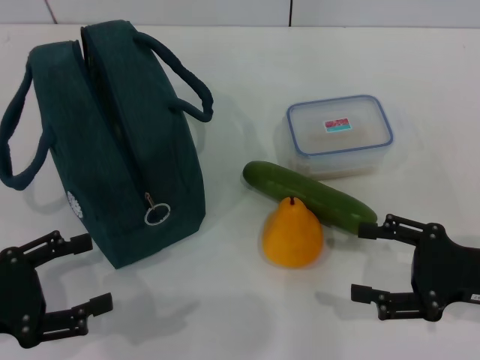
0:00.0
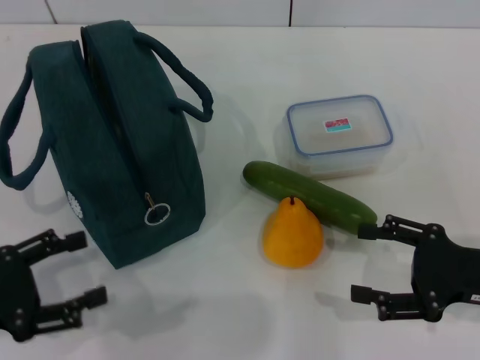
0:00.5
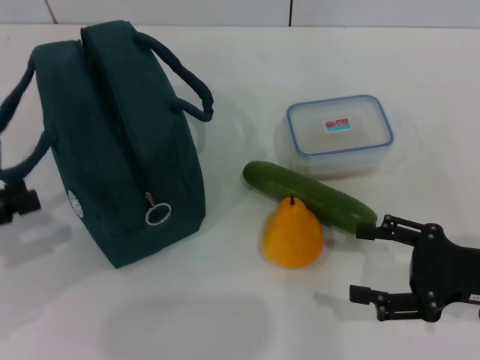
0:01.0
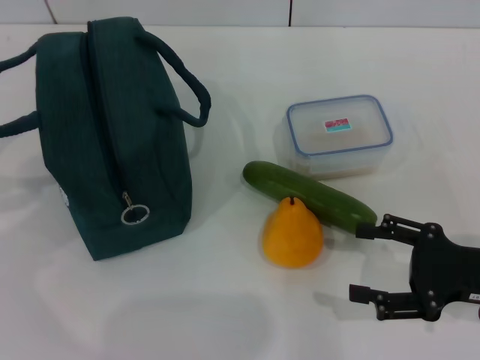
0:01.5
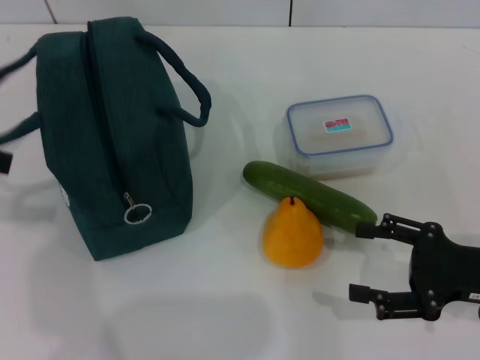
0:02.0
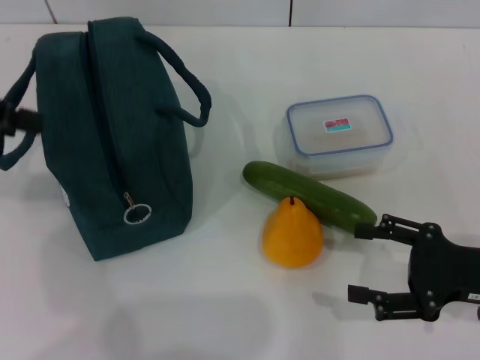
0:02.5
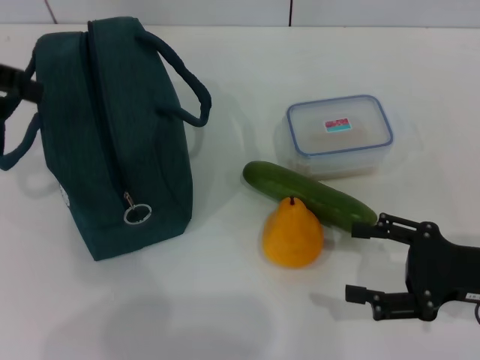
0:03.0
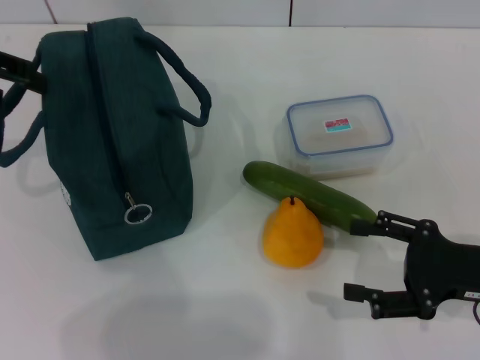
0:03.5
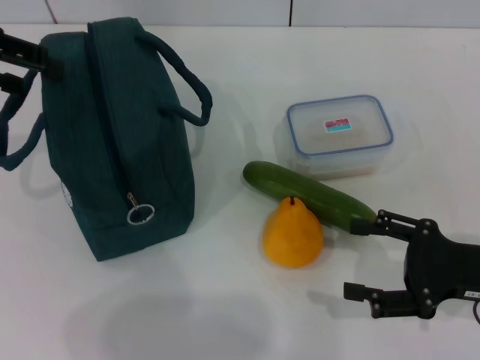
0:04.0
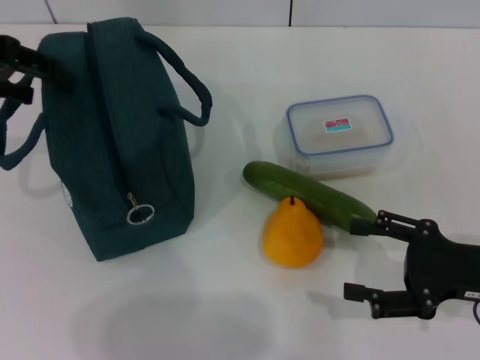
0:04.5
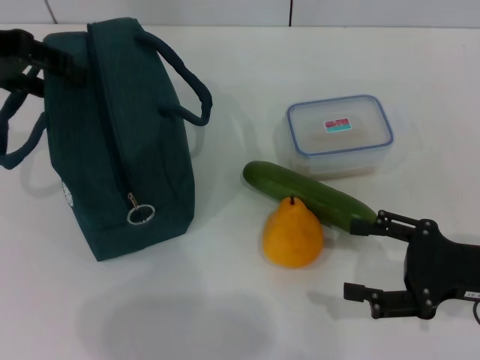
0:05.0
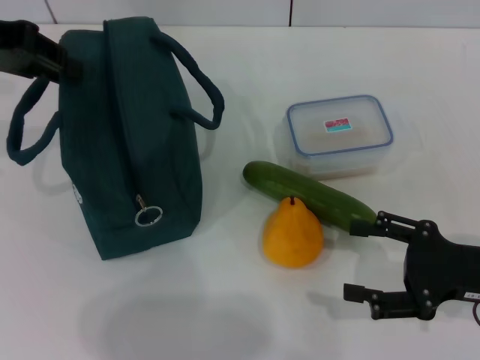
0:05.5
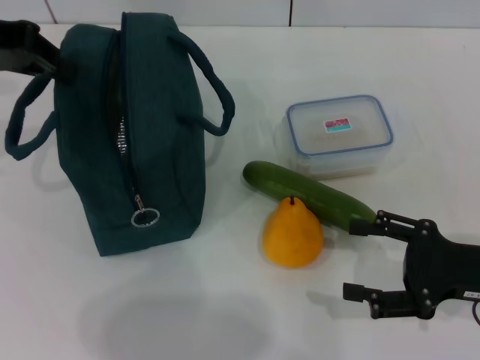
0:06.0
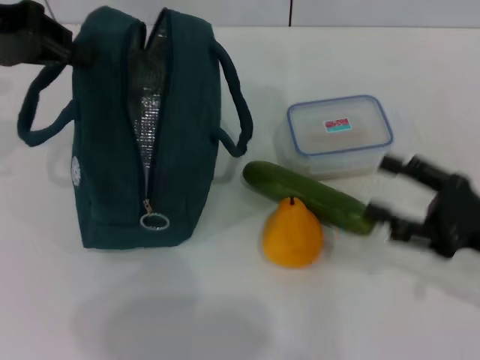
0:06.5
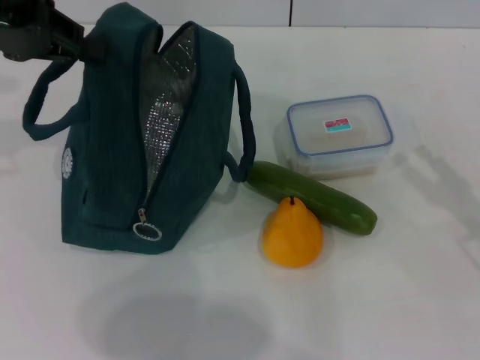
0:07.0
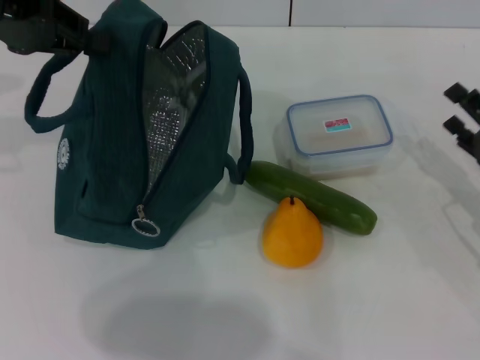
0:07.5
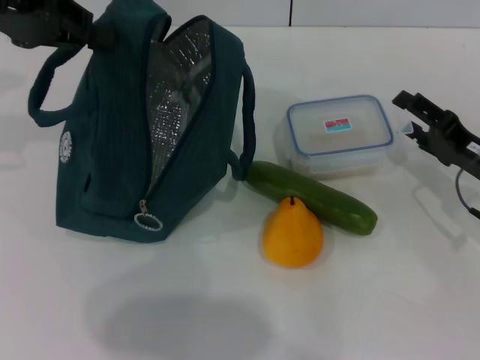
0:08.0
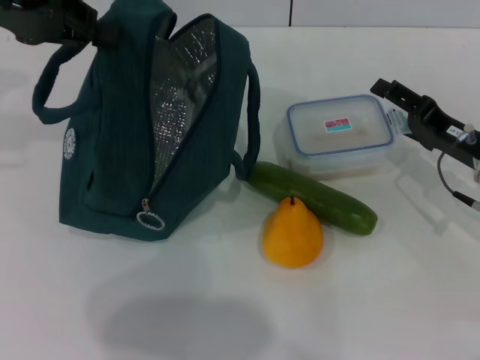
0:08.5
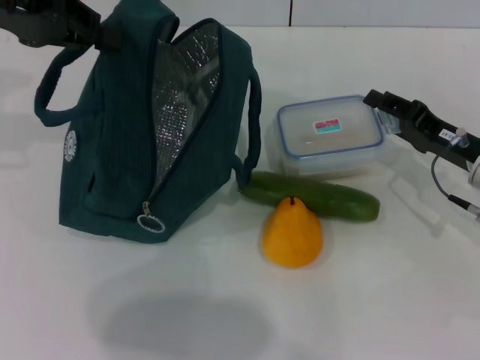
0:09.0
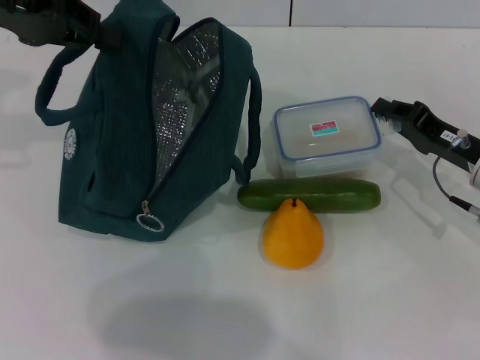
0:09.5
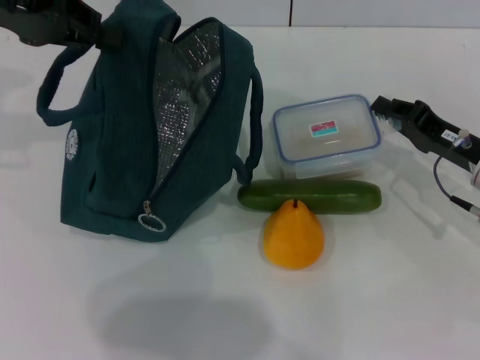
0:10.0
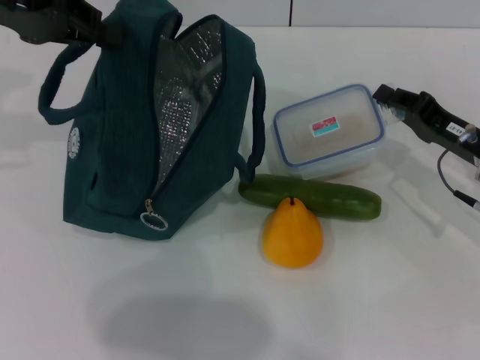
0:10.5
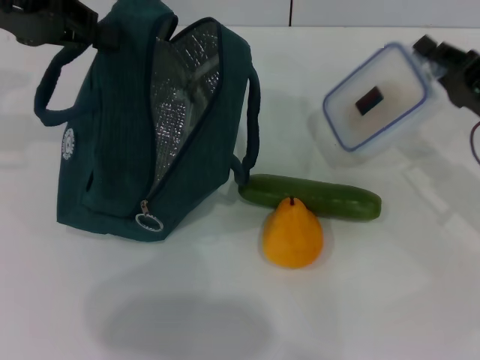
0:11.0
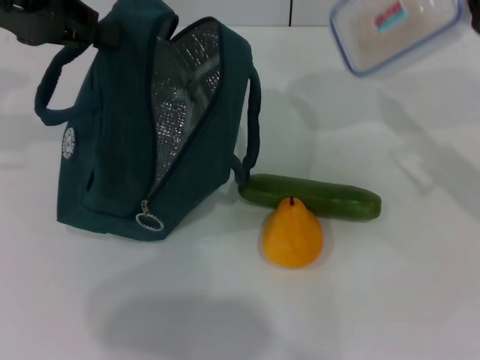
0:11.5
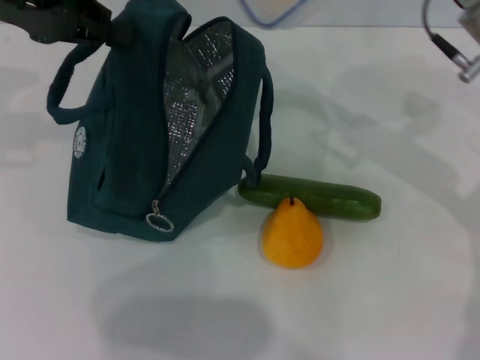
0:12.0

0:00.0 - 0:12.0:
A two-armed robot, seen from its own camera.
Step, 0:00.0 - 0:07.5: Hold the lunch bag with your left hand.
Step, 0:08.0 - 0:10.0: Pick up the lunch box with your right hand.
0:00.0 - 0:02.0: The left gripper heads upward and forward, covering roughly 20 cm.
0:02.0 - 0:04.0: The left gripper goes about 10 cm forward.
0:04.0 - 0:06.0: The left gripper closes its fingers.
0:06.0 - 0:08.0: The right gripper travels forward by about 10 cm.
0:08.0 - 0:10.0: The right gripper closes.
0:10.0 - 0:12.0: The right gripper is displaced upward and to the left by some 15 cm.

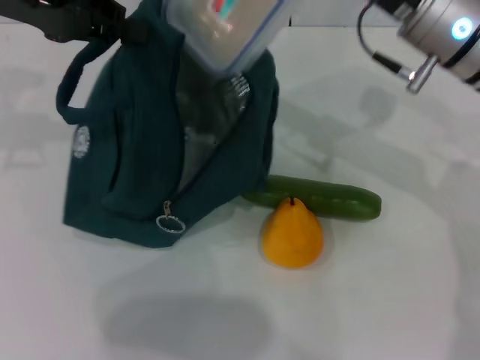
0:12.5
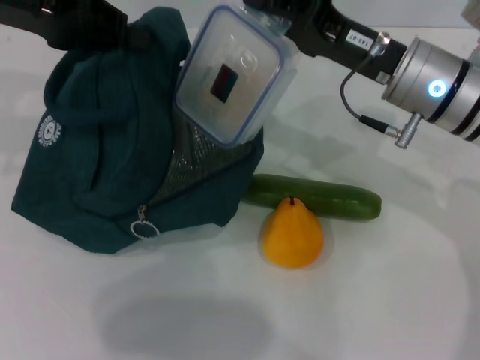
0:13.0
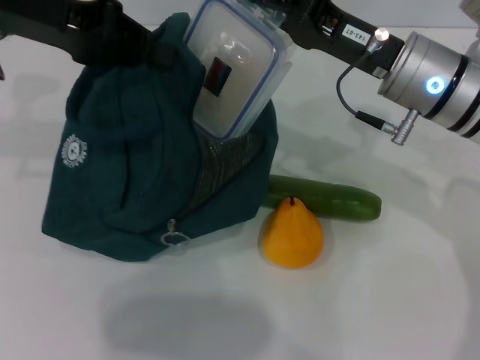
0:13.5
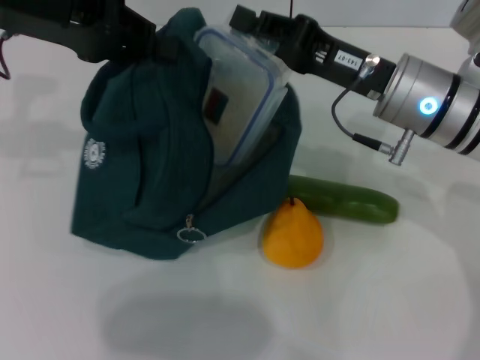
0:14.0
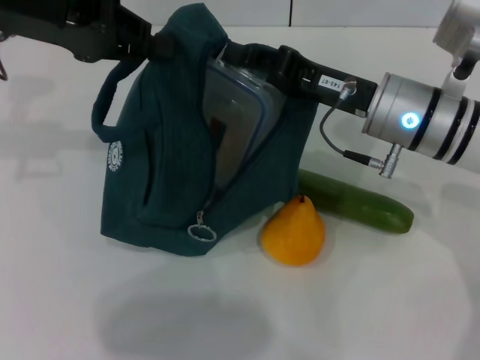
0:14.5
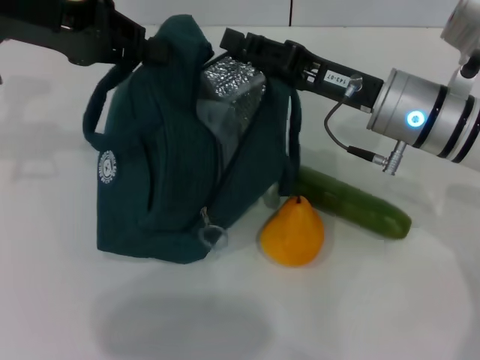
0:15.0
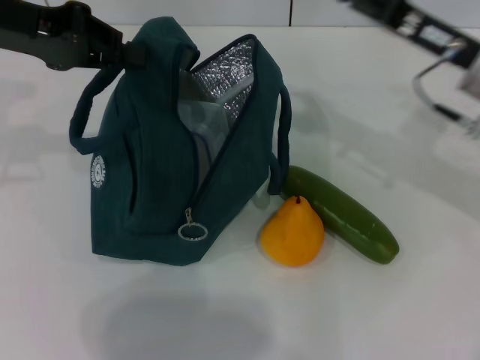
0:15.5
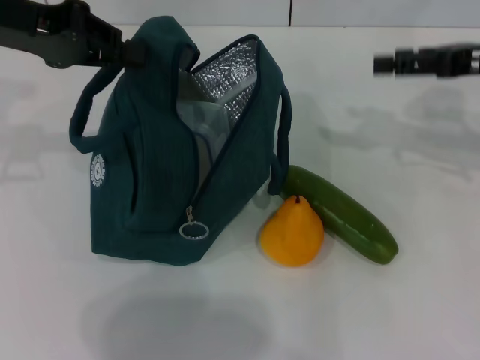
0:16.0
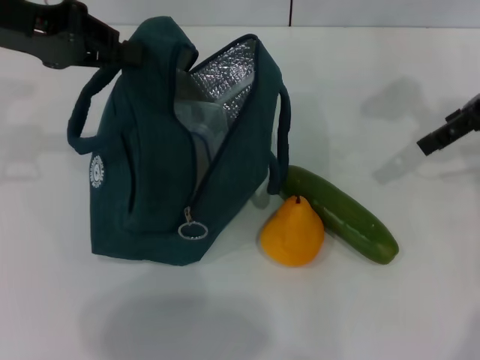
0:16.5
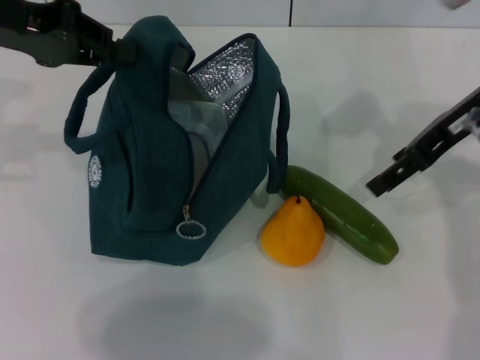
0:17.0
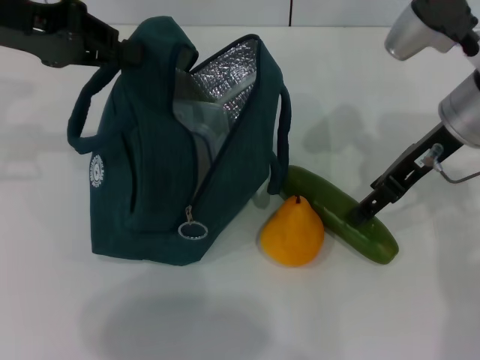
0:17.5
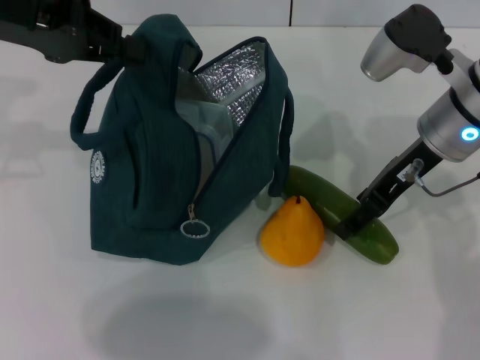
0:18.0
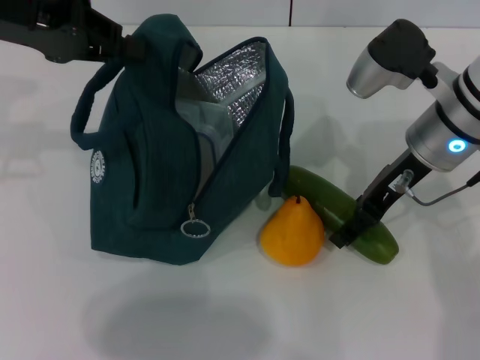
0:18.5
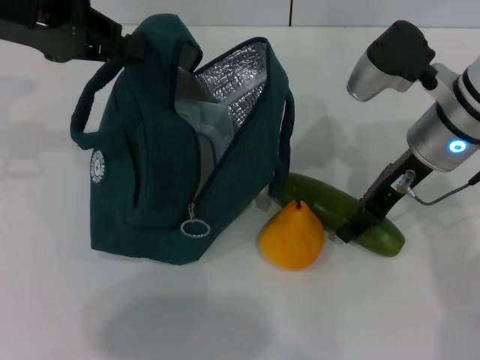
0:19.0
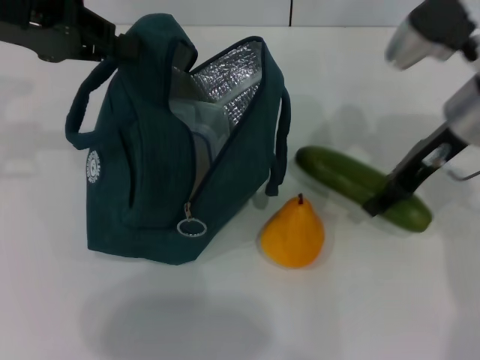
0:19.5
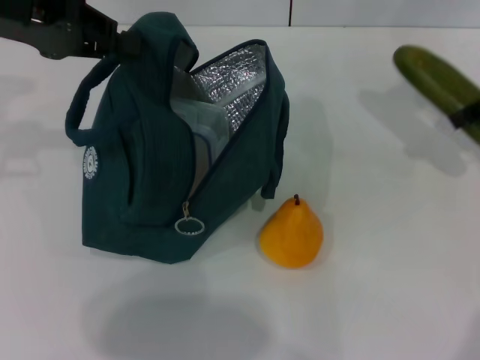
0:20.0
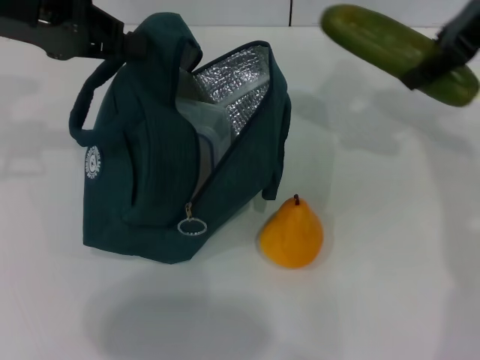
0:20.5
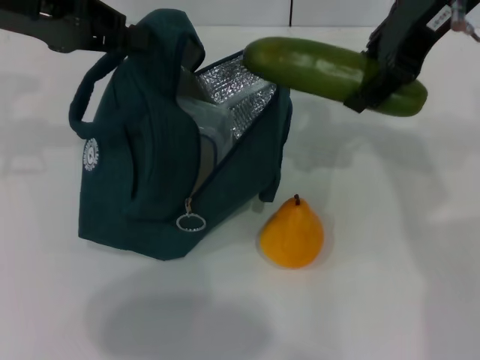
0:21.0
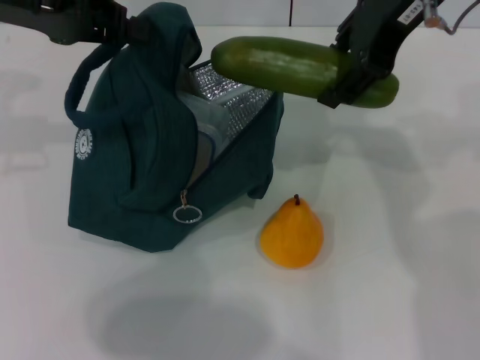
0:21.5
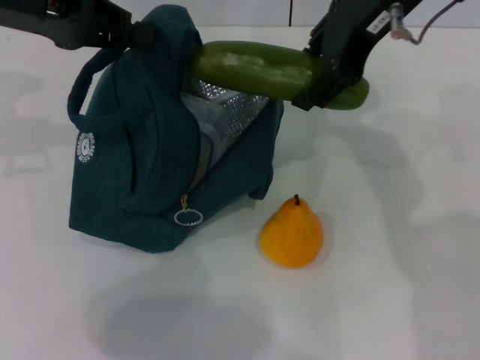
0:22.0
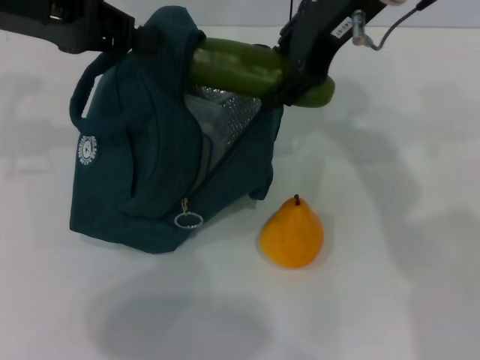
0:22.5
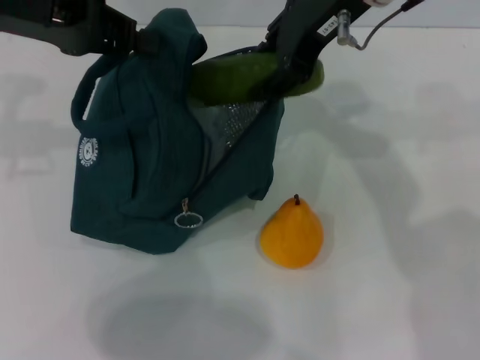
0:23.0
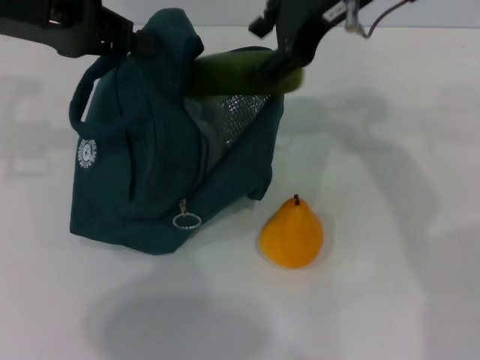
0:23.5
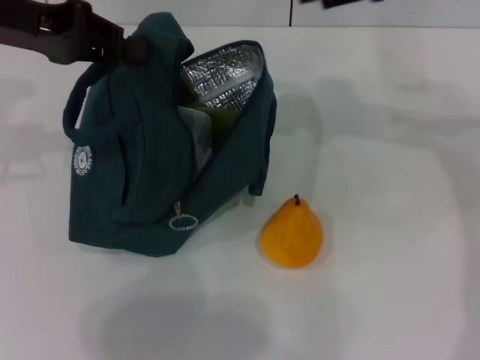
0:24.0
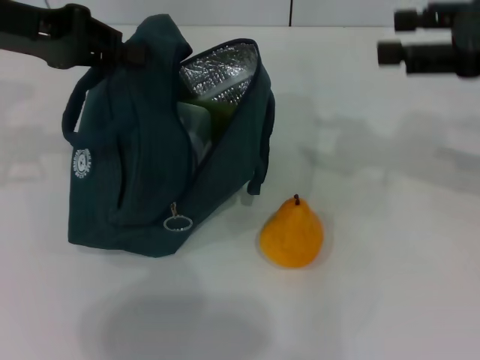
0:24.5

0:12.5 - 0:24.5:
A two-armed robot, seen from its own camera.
Step, 0:12.5 - 0:14.5: Place the lunch box into the lunch bag with your right hand.
Step, 0:15.0 - 0:18.5: Pick up the cucumber with your right hand.
Step, 0:19.0 - 0:23.5: Put the cucumber into the lunch bag with your right hand.
0:12.5 - 0:14.5: The right gripper shifts approximately 5 cm downward.
0:14.5 - 0:16.5: The right gripper heads to the right and upward, covering some 15 cm, and opens its fingers.
0:16.5 - 0:18.5: The right gripper travels to the left and downward by approximately 15 cm.
0:18.5 - 0:20.5: The right gripper shifts approximately 15 cm upward.
0:20.5 - 0:22.5: The right gripper travels to the left by about 10 cm.
0:22.5 - 0:24.5: The right gripper is displaced to the right by roughly 20 cm.

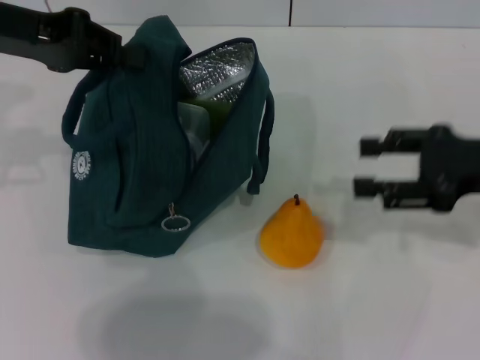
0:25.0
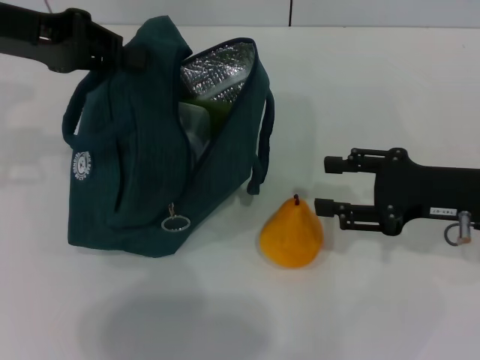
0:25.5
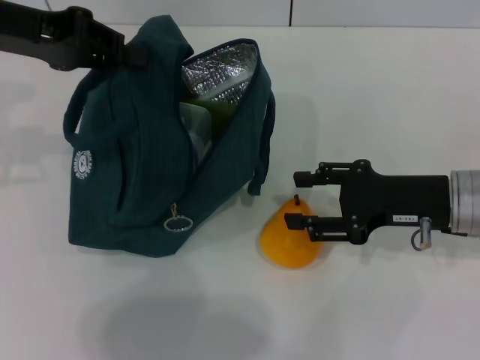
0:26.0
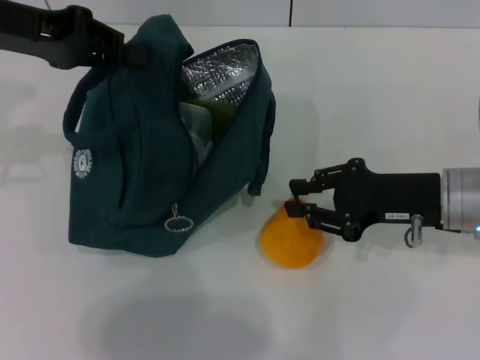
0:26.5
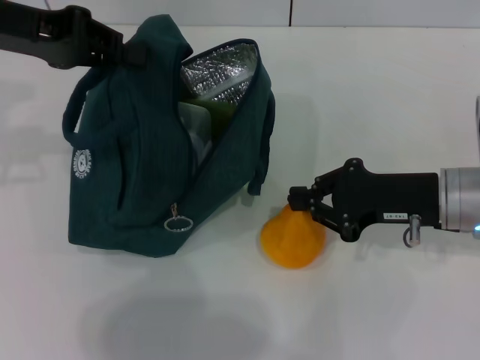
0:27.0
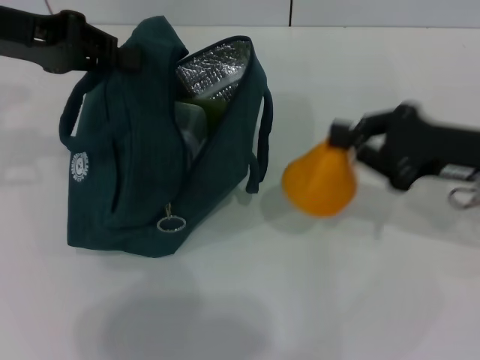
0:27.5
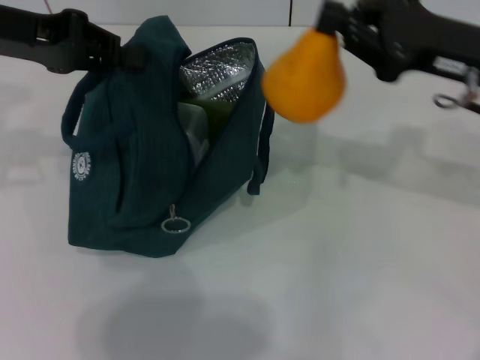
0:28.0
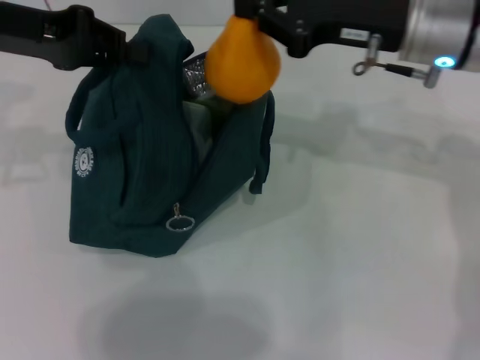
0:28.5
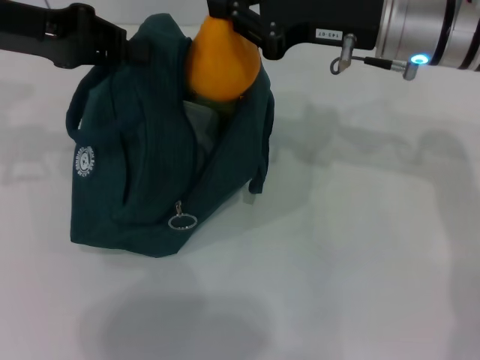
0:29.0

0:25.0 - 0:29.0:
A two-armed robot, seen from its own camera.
Step, 0:25.0 - 0:26.5: Grab the pear with your right hand.
0:25.0 - 0:27.0: The right gripper is displaced downward and to the left by approximately 10 cm, and closes up.
0:27.0 - 0:29.0: The right gripper moves upward, forward and to the left, about 15 cm.
